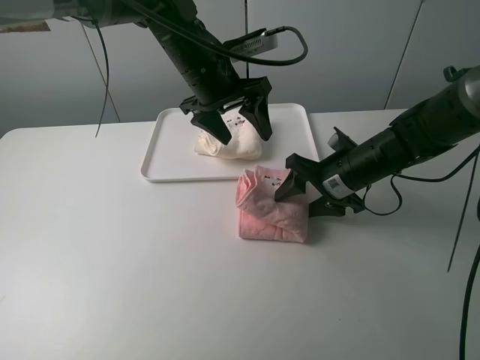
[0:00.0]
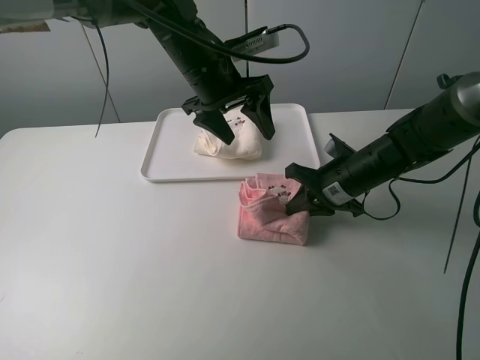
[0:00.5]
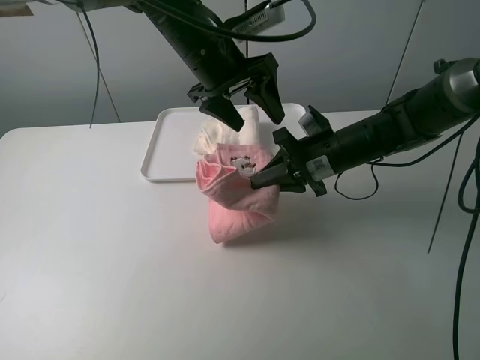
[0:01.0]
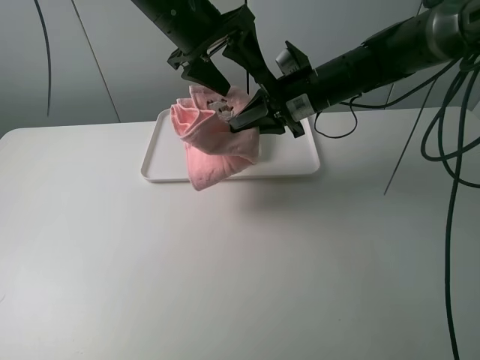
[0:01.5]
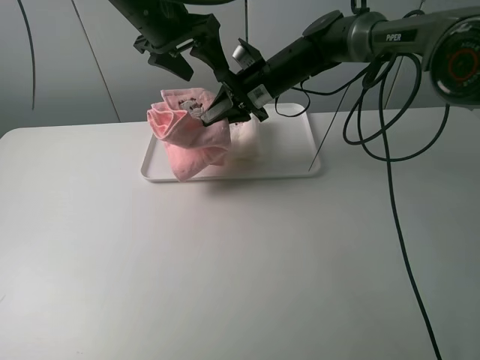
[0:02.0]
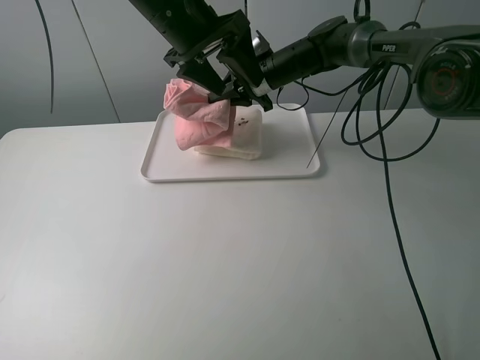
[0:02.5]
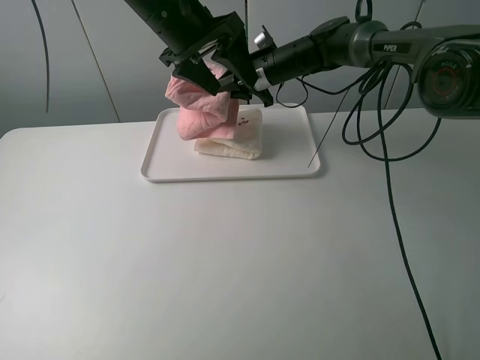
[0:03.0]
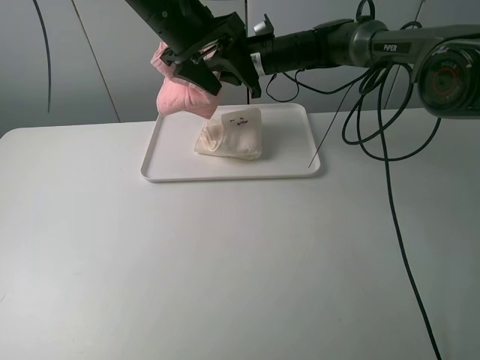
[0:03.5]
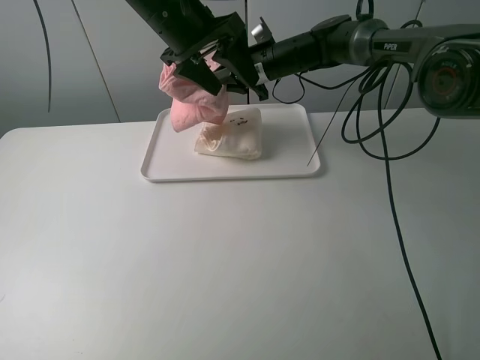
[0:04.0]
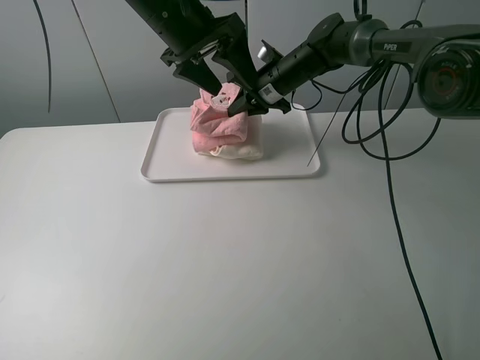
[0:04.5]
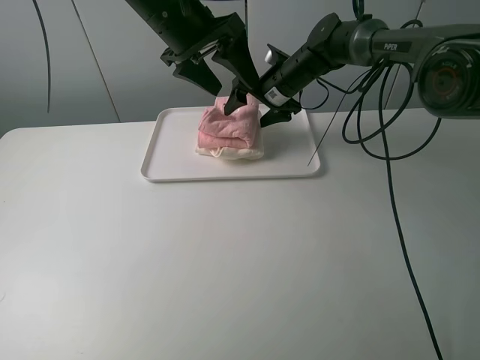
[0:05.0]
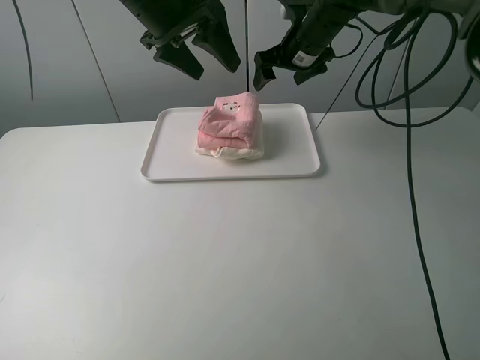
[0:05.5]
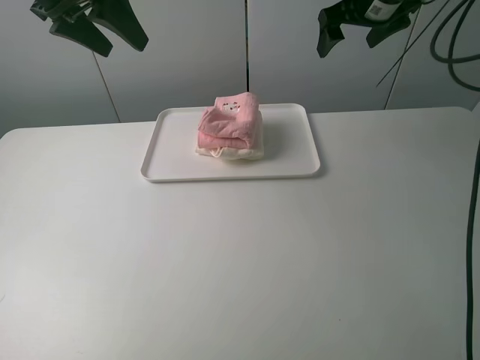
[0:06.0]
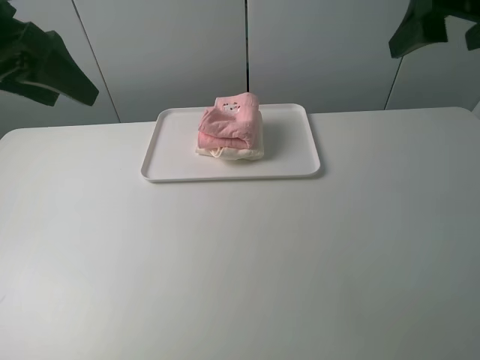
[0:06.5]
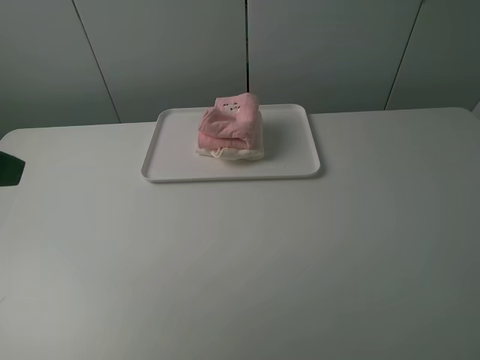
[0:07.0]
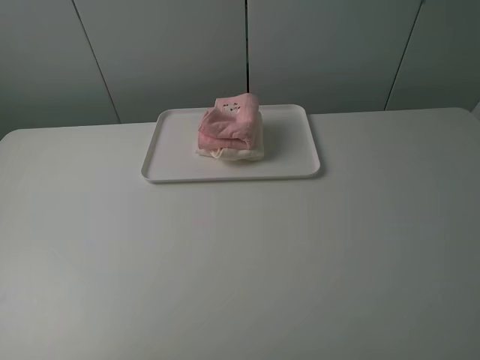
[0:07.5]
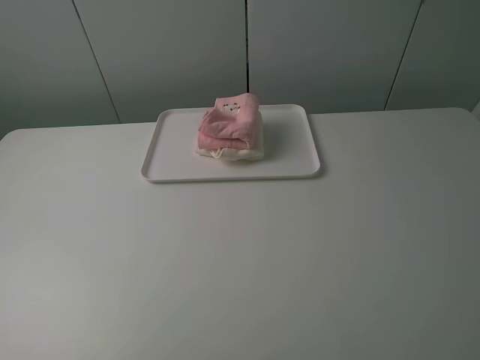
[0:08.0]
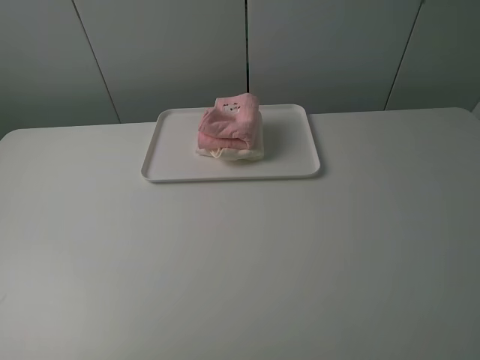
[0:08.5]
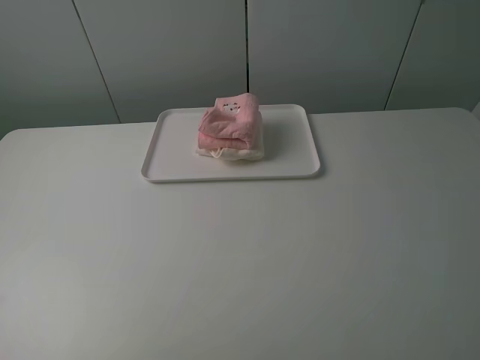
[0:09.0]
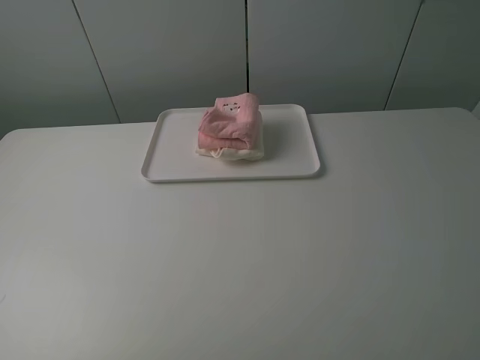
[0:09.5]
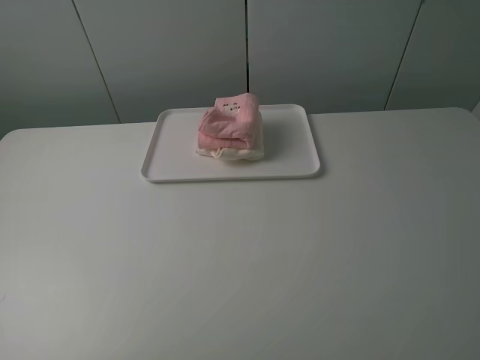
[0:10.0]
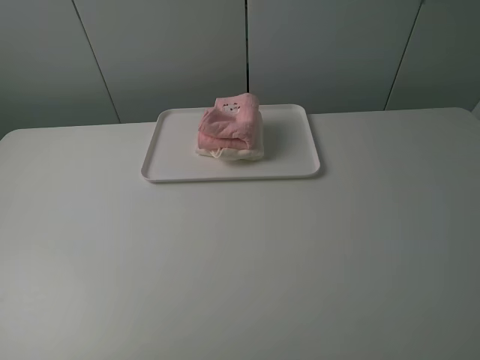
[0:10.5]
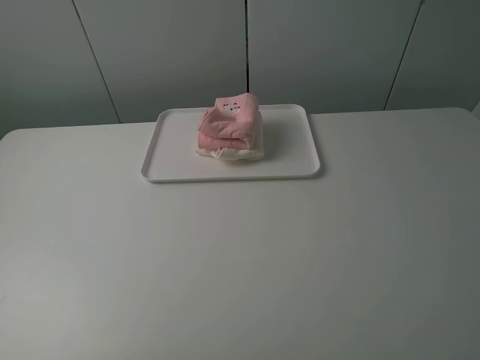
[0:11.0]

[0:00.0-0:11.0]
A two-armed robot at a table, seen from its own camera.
Task of the whole recording: fold one of the towels by two grippers and place it on the tray,then fold another towel by two grippers and place it on the folded towel.
Step, 0:01.0 to 0:05.0: Place the pink towel on the white towel with the right gripper.
0:00.0 to 0:02.0: The right gripper moves forward, to the left and upward, some 20 cm, and closes its fingers. The left gripper is displaced upward and to the left by about 10 cm.
0:02.0 to 0:03.5: The right gripper moves roughly 5 cm.
0:03.5 to 0:05.5: The right gripper travels to the right by about 5 cm, and opens.
0:05.5 to 0:07.5: The right gripper moves backward, about 50 cm. Meanwhile the left gripper heads backward and to the left, covering some 40 cm.
